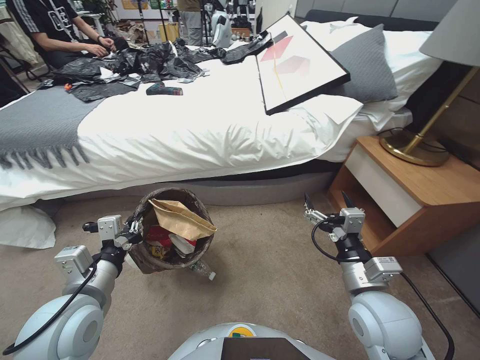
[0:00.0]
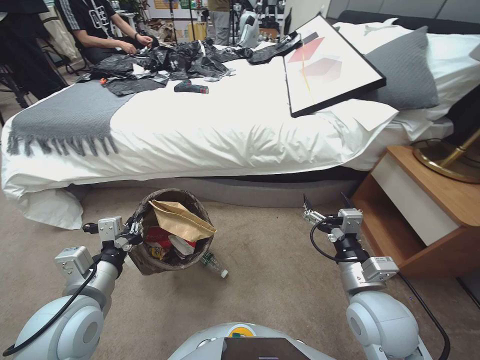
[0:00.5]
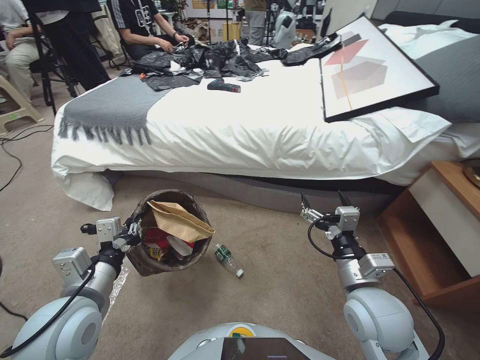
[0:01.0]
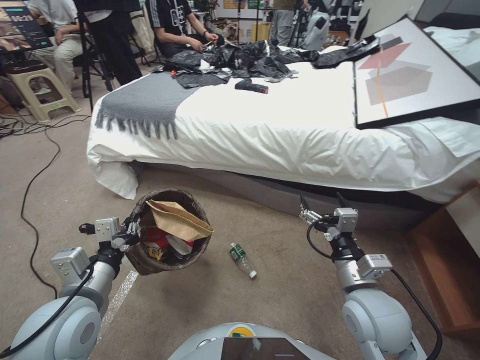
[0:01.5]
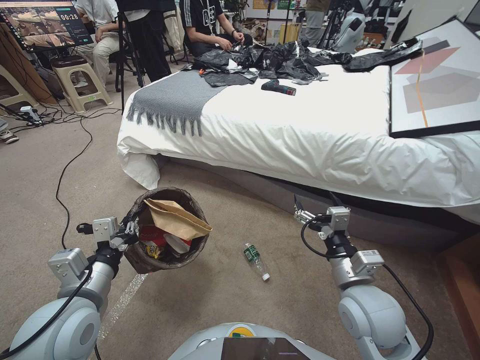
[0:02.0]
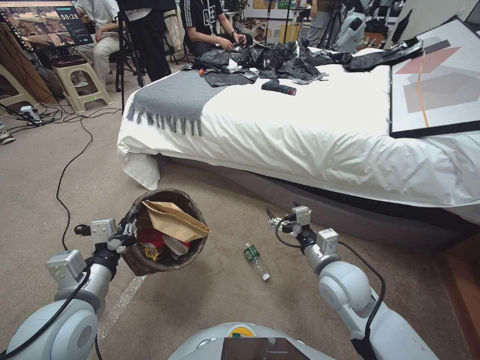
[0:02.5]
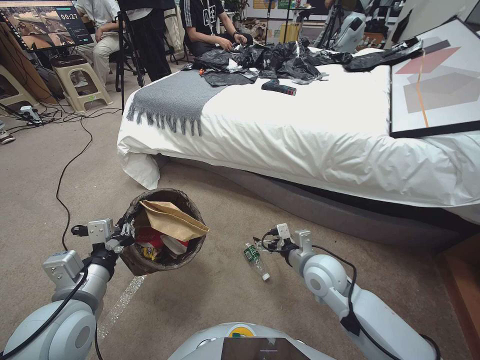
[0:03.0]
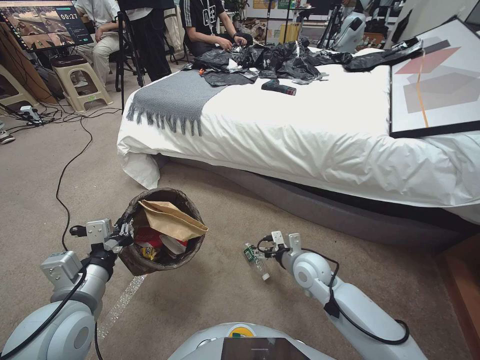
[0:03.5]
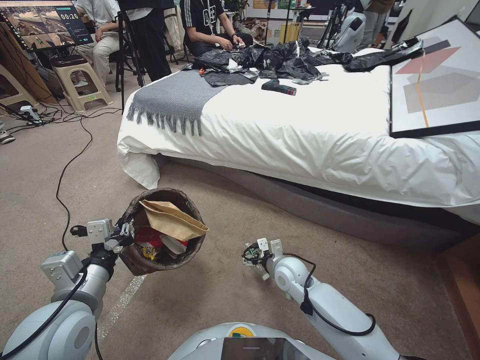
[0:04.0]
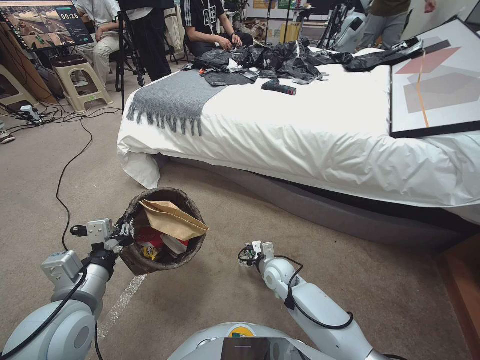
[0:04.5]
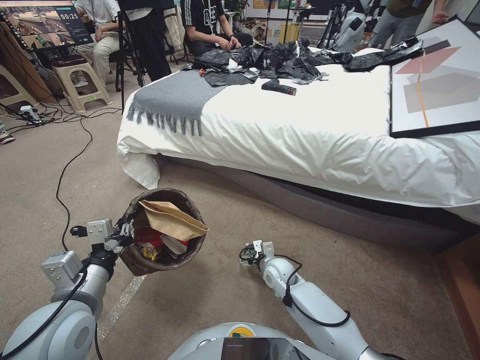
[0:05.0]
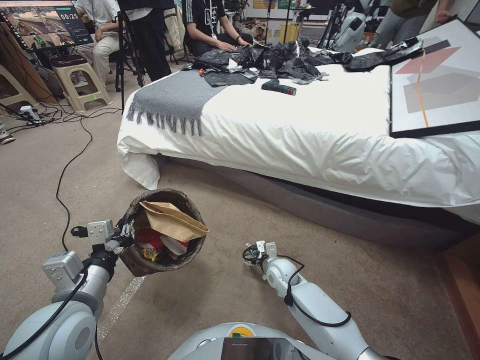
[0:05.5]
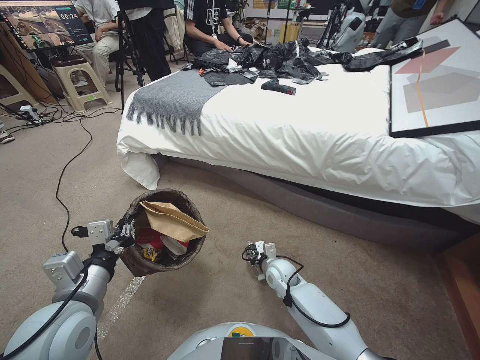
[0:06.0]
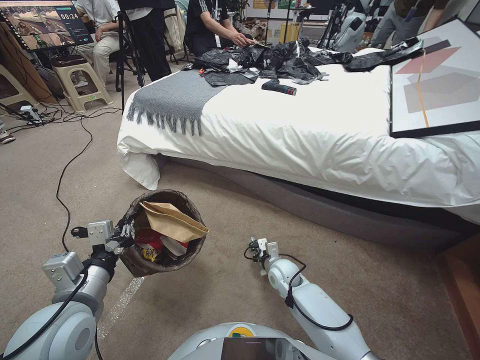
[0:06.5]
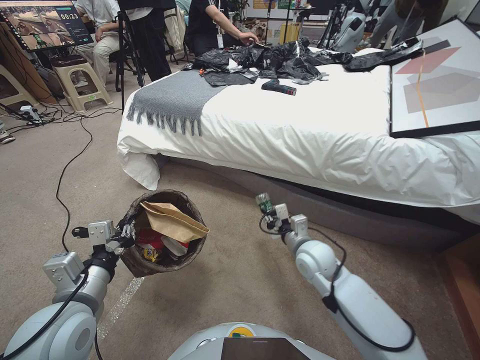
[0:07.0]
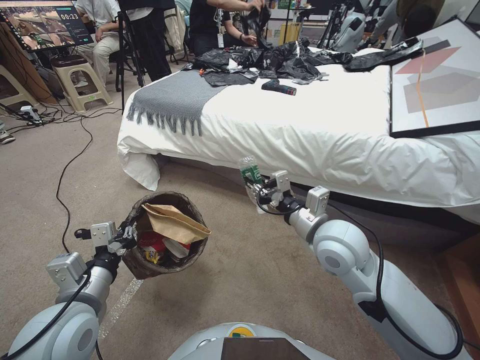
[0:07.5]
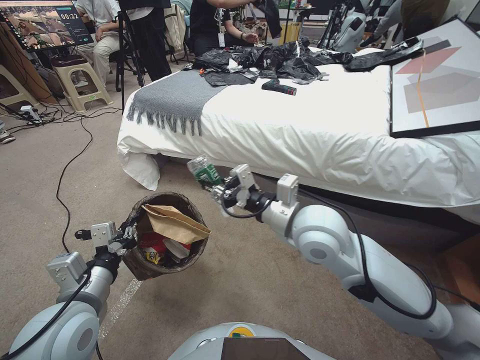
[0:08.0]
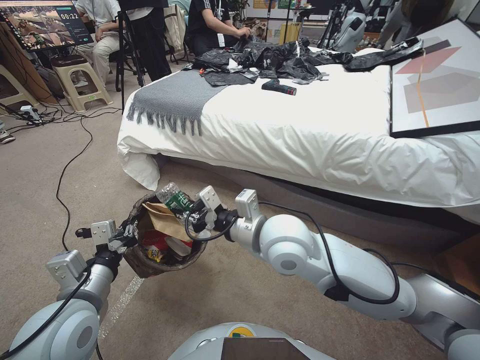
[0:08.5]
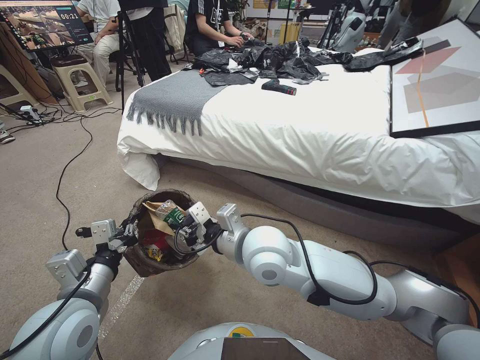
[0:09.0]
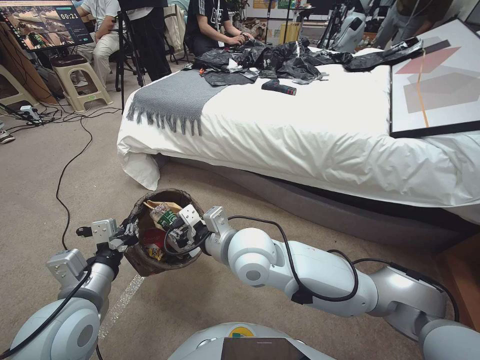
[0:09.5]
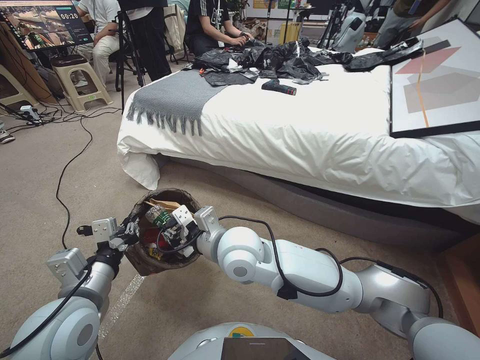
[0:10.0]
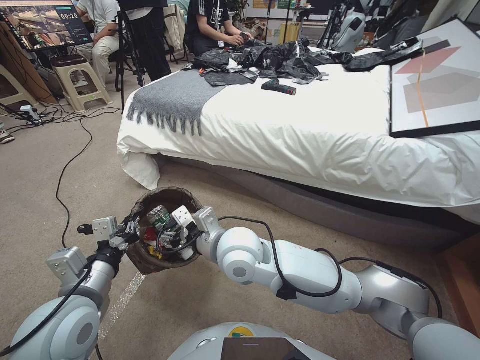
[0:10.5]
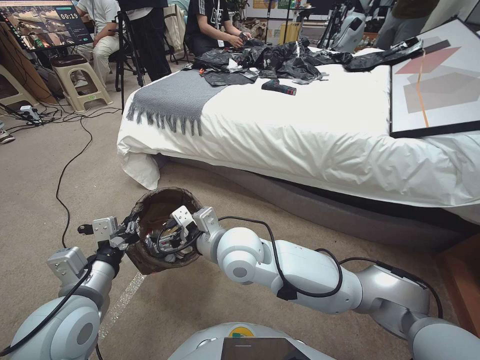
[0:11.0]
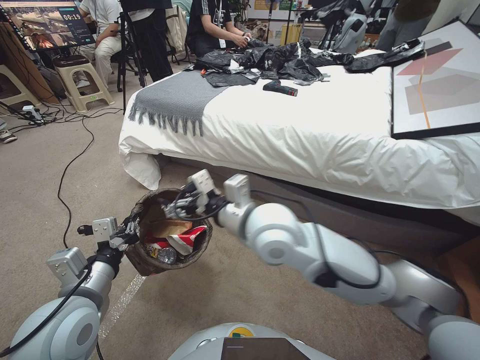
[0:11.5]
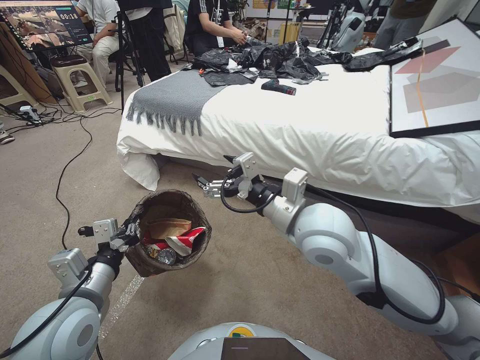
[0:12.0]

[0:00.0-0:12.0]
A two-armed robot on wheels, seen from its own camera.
Task of the whole recording: Pick up the trash bin, then pick up the garbage from the floor and place it into the trash bin.
0:02.0 to 0:04.0: The right gripper is displaced downward, forward and to the left by approximately 20 cm.
0:04.0 to 0:06.0: The right gripper is displaced downward by approximately 10 cm, and closes its fingers.
0:06.0 to 0:08.0: The right gripper shifts roughly 35 cm upward.
0:08.0 to 0:10.0: The right gripper heads to the left and downward, covering some 15 cm.
0:10.0 to 0:12.0: The right gripper heads to the right and upward, covering roughly 15 cm, and opens.

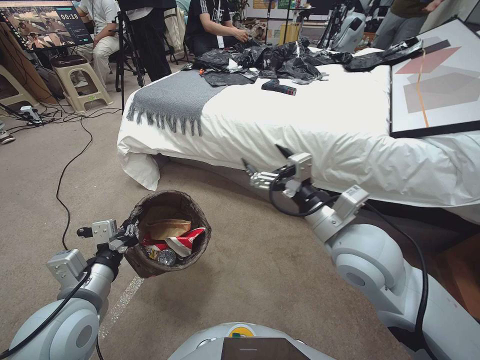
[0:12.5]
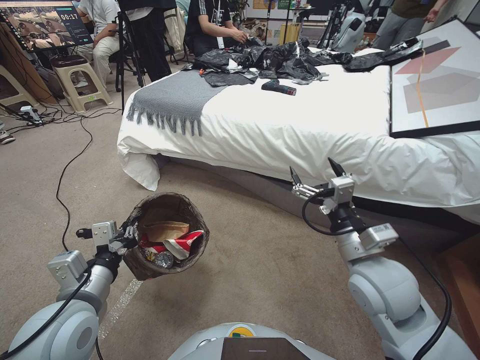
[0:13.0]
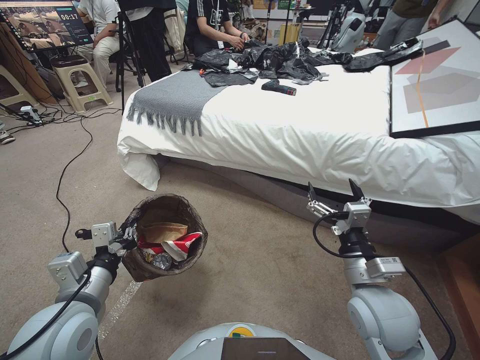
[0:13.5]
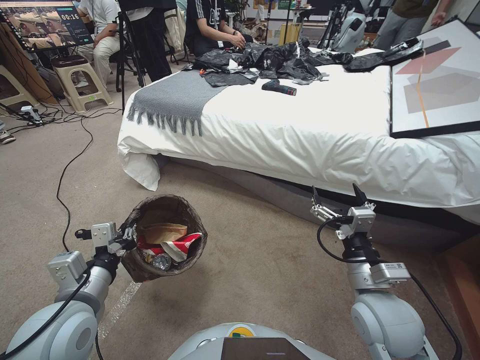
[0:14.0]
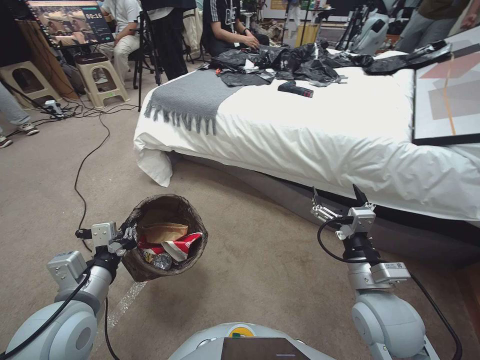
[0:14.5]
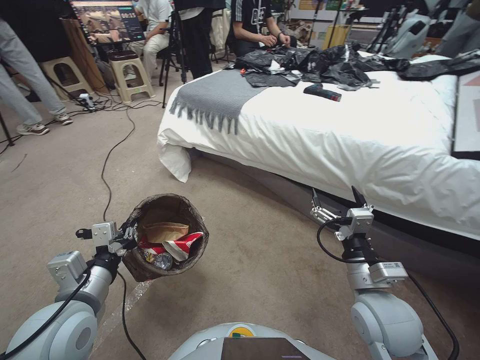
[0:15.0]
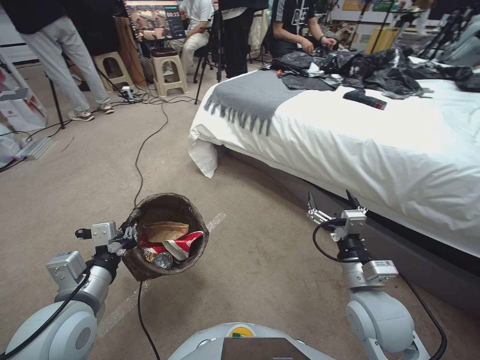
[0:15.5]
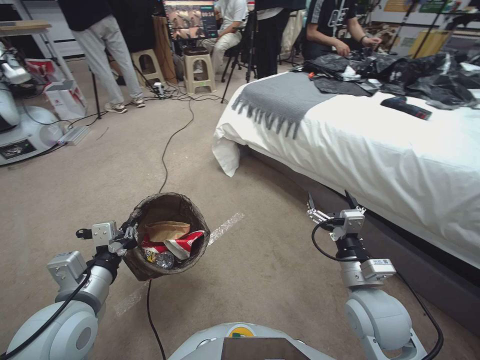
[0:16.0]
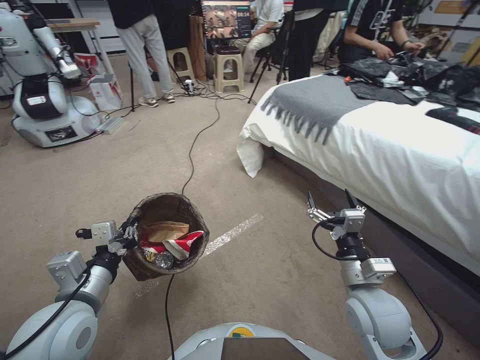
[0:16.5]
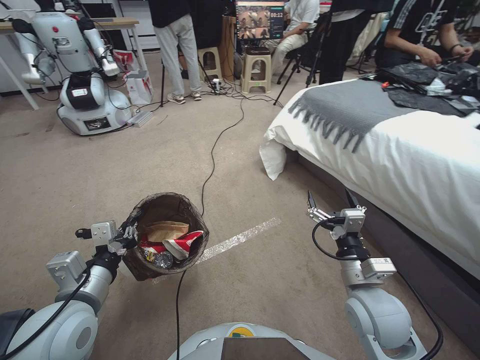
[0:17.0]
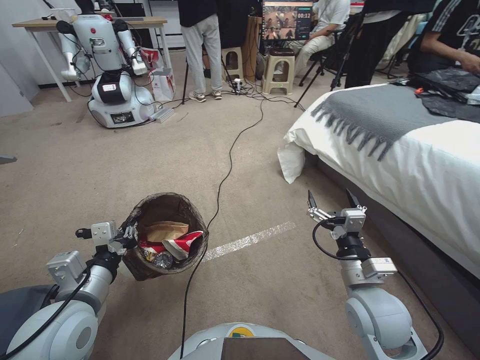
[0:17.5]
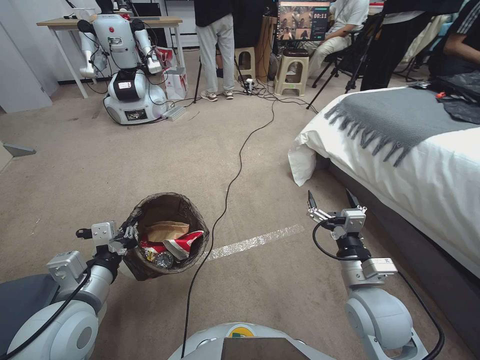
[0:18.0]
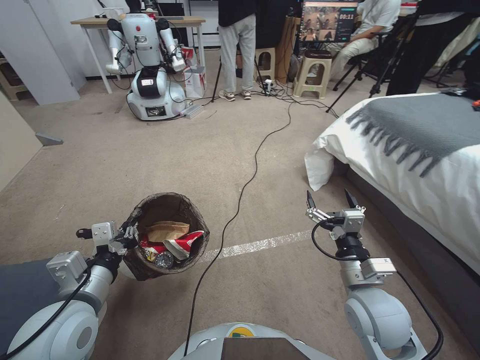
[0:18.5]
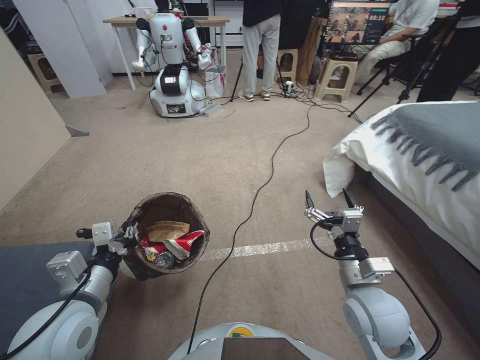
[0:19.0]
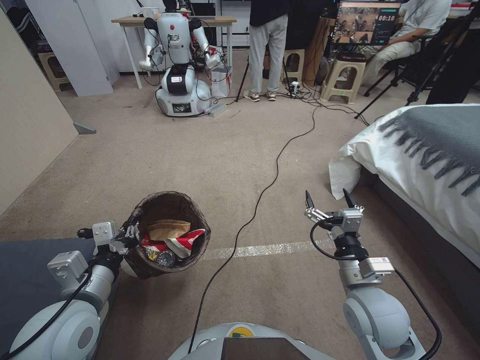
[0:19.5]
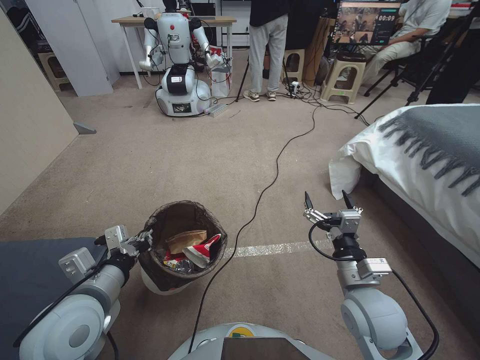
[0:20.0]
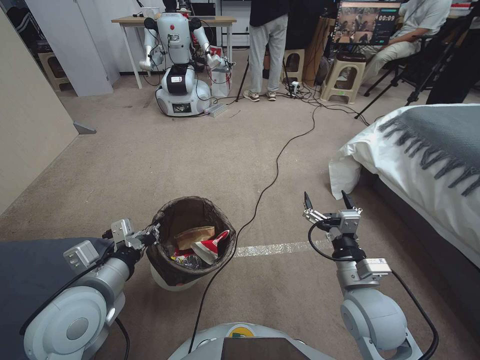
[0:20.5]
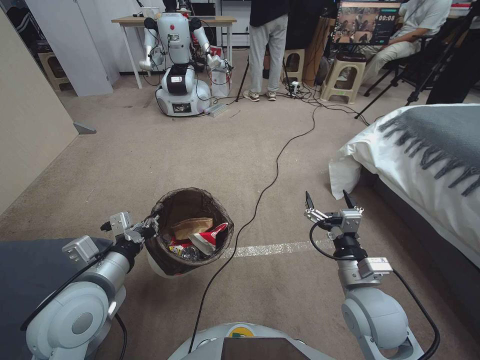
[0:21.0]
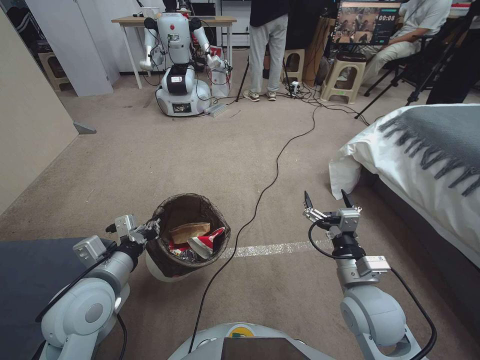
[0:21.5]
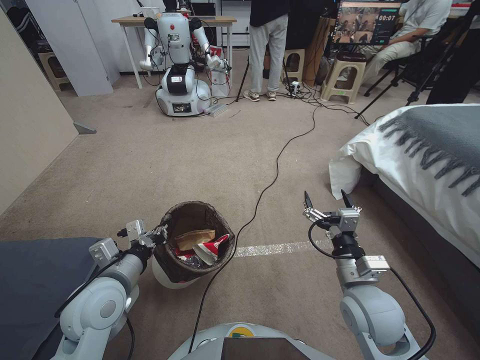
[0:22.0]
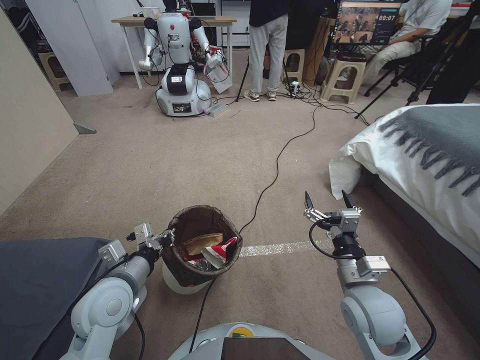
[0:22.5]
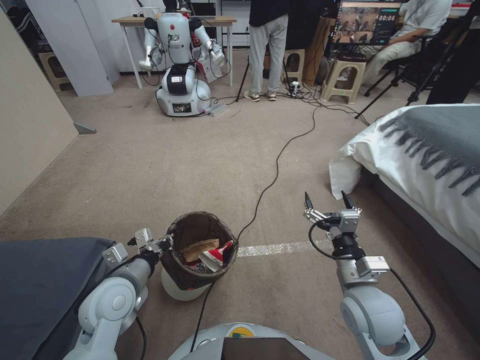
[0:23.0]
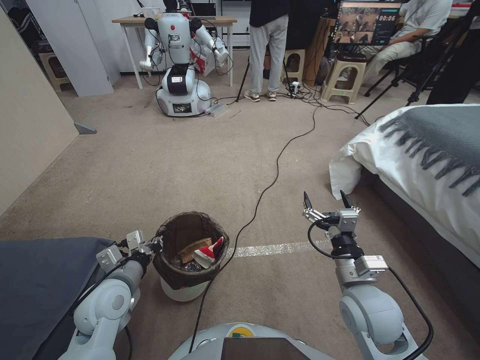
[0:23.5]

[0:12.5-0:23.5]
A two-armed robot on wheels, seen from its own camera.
Task of the whole recording: Pick up the trash bin, then pick up the garbage from the floor and place it into the trash bin.
0:12.5 to 0:14.5: The right gripper shifts about 15 cm downward, backward and to the right.
0:20.0 to 0:21.5: There are only small adjustments of the grippers.
0:21.5 to 0:23.5: The left gripper travels downward by about 10 cm.

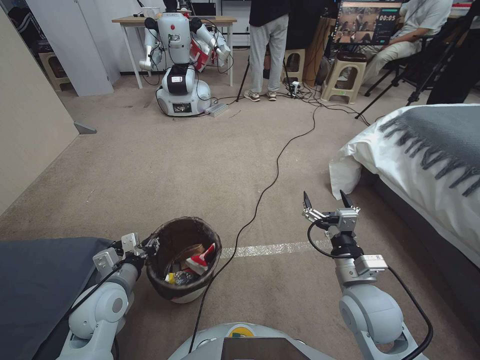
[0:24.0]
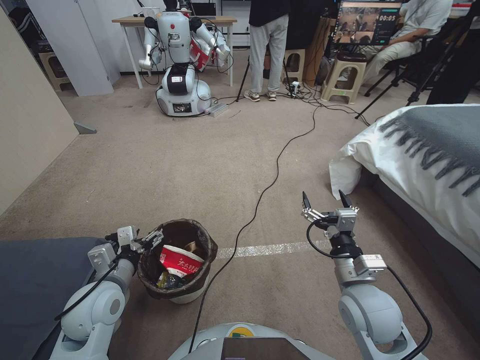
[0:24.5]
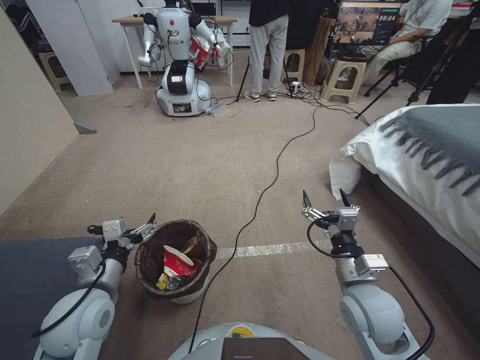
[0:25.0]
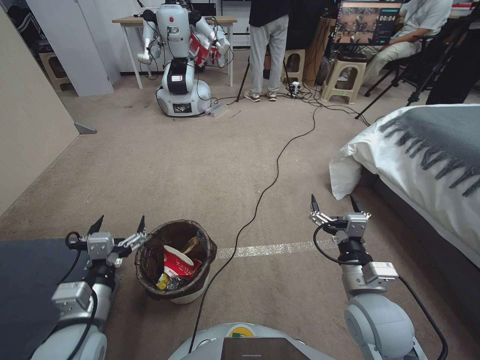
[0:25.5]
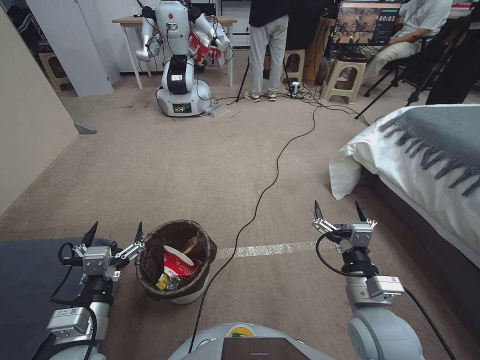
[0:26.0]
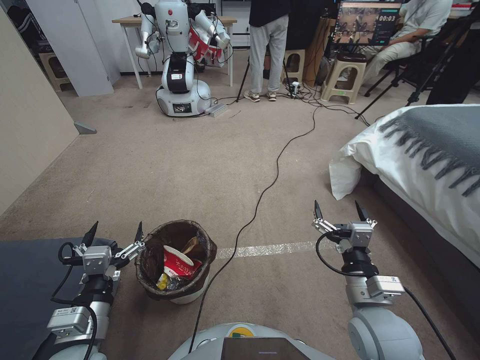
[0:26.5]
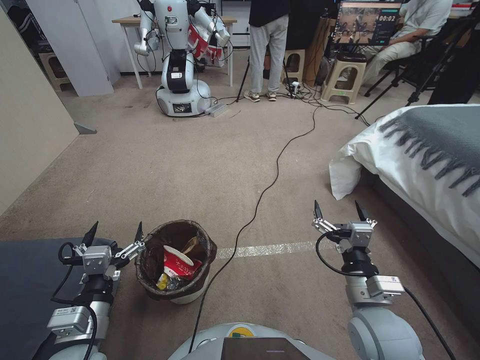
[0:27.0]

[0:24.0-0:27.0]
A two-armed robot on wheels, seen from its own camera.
Task of the whole recording: Pick up the trash bin, then pick up the garbage from the floor and place it into the trash bin.
0:24.0 to 0:25.5: The left gripper shifts some 10 cm backward and upward, and opens its fingers.
0:25.5 to 0:27.0: The grippers stay close to where they were, moving slightly.
